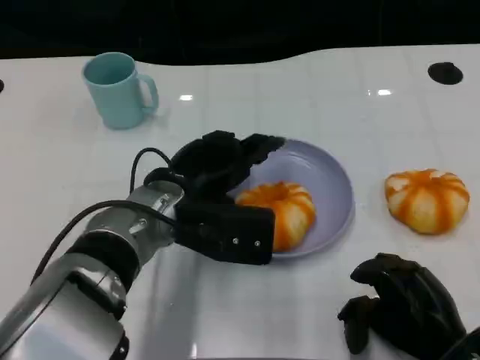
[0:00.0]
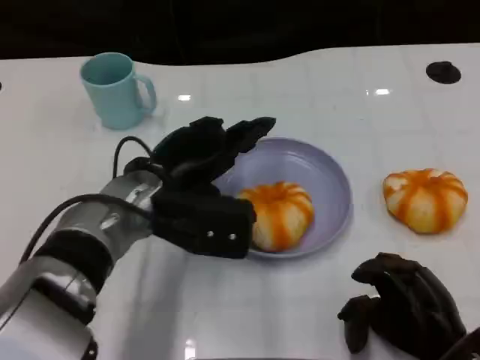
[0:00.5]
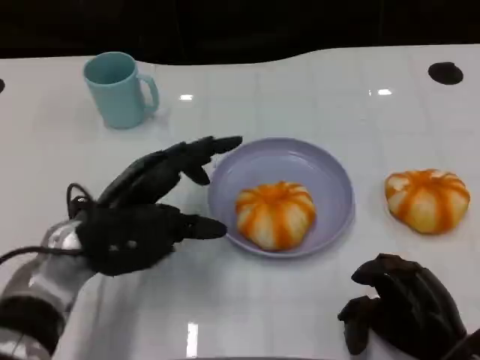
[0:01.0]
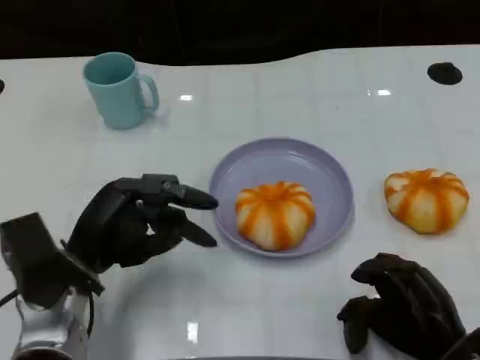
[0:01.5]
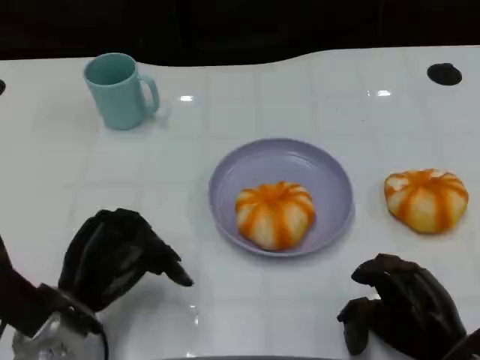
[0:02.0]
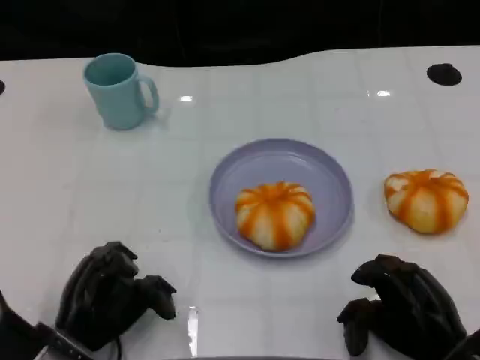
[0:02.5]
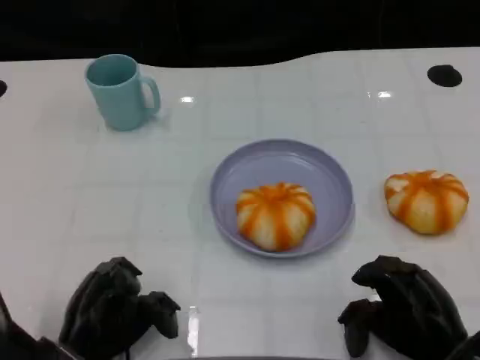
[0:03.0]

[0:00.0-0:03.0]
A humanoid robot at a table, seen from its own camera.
Task of the whole recording: Grasp the bread from the table and place it into the plate.
0:00.0 to 0:01.5: The left hand is displaced to the left and backward by roughly 10 cm.
0:01.5 to 0:03.0: The left hand goes some 10 cm backward and downward.

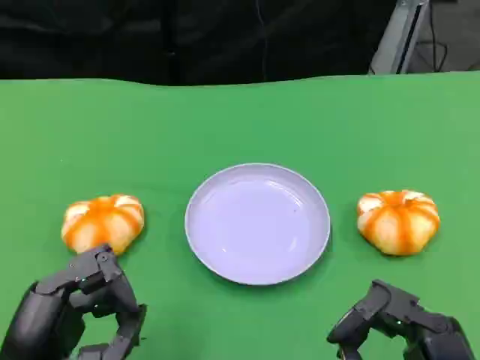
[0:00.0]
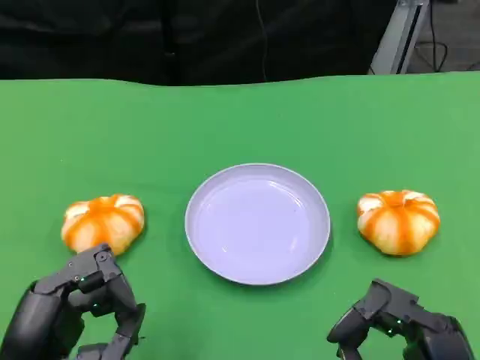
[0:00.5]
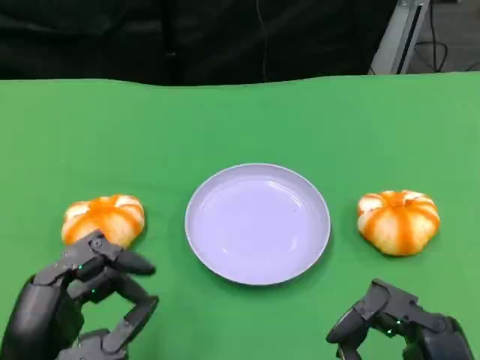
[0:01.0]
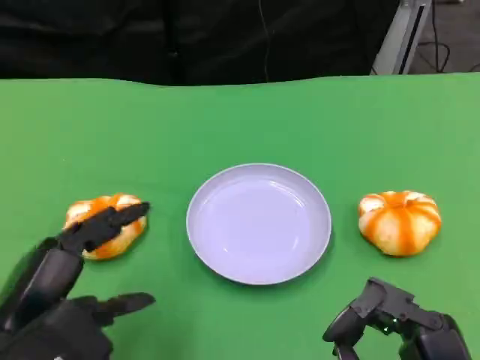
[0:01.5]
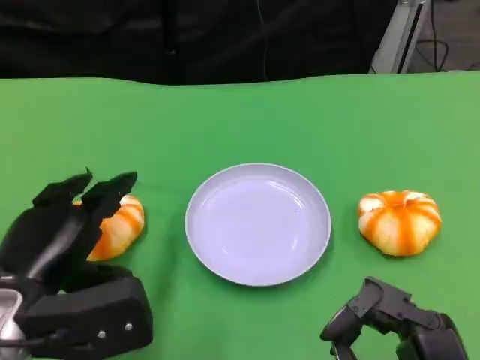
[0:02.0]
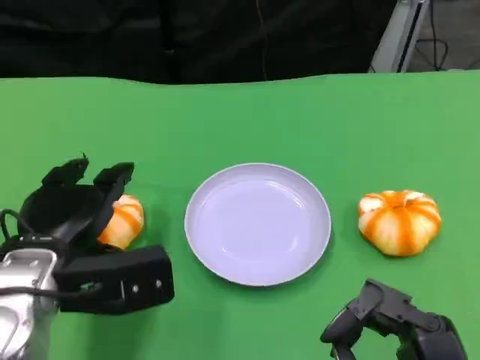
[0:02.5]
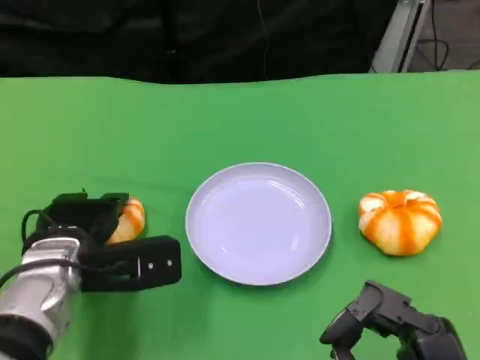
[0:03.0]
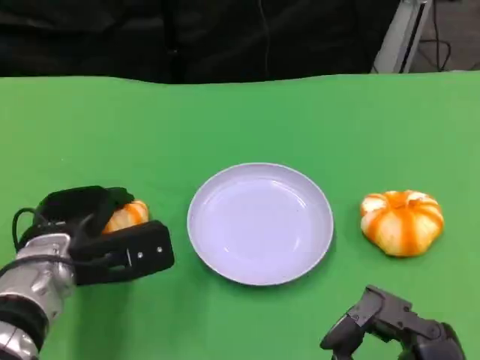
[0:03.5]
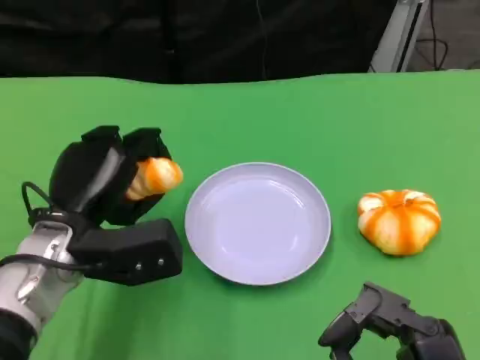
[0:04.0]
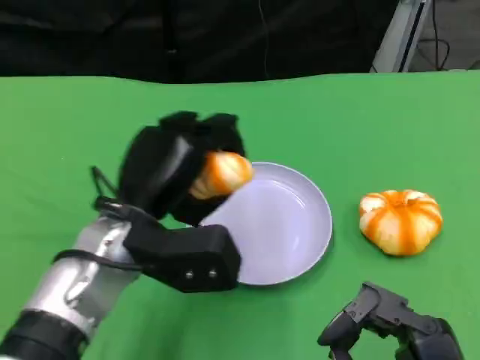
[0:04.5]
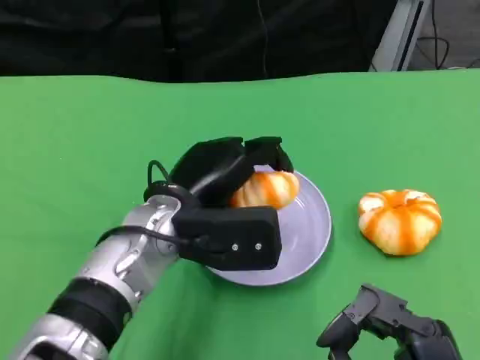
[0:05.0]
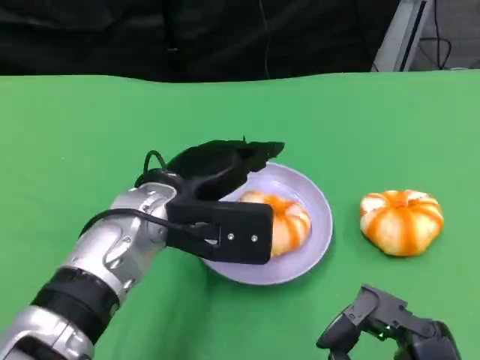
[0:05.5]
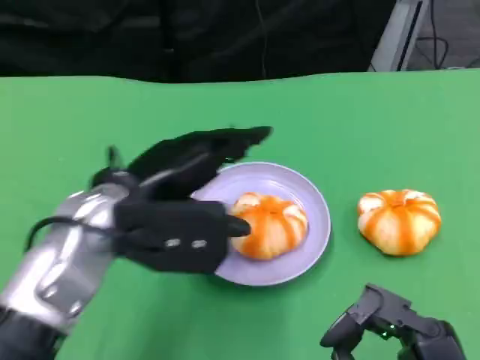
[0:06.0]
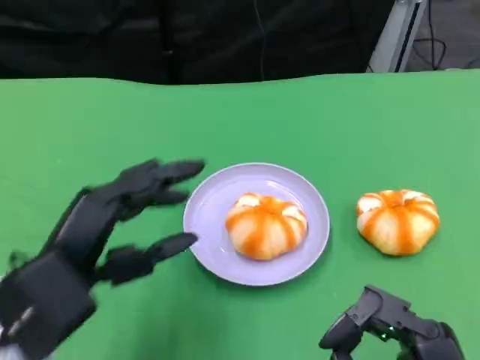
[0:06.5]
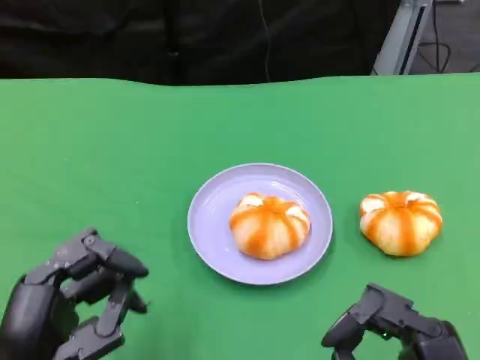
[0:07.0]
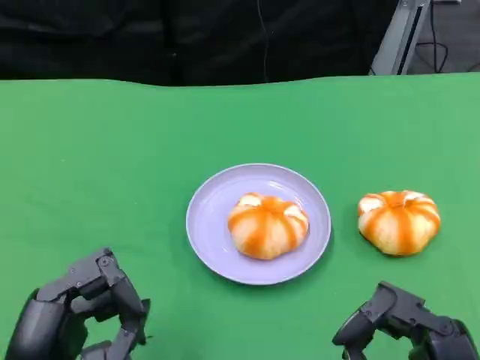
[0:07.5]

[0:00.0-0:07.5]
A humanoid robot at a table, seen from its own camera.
Task of the whole recording: Grasp the bread from the table and place it into the plate.
0:00.0 to 0:02.0: The left hand travels forward by roughly 10 cm.
0:02.0 to 0:04.0: The left hand is displaced forward by approximately 10 cm.
0:04.0 to 0:05.5: The left hand is displaced to the right by about 10 cm.
0:05.5 to 0:07.5: The left hand is displaced backward and to the left by some 20 cm.

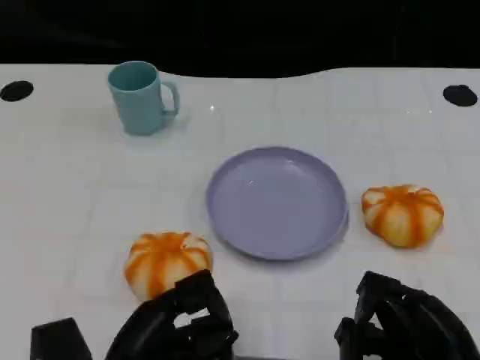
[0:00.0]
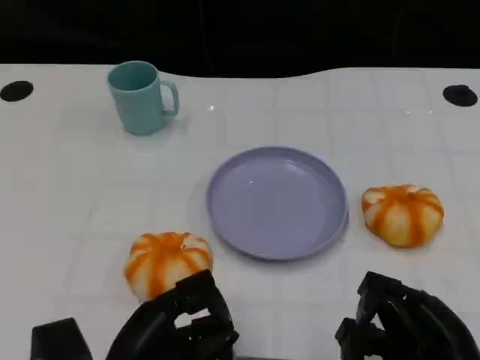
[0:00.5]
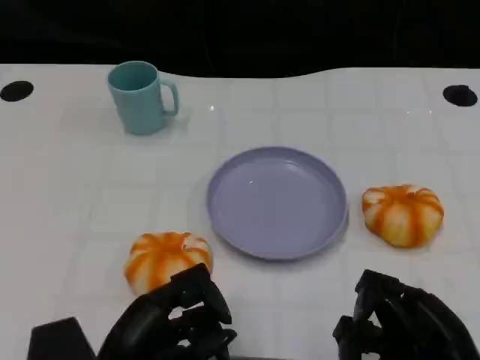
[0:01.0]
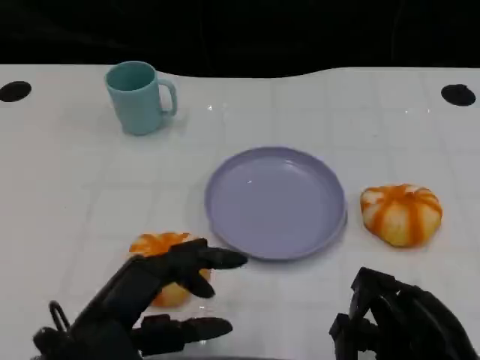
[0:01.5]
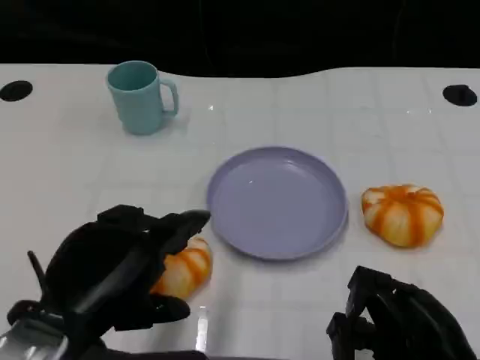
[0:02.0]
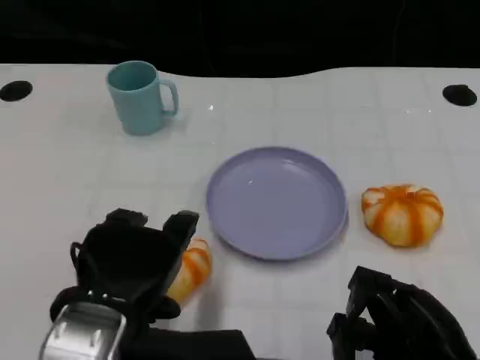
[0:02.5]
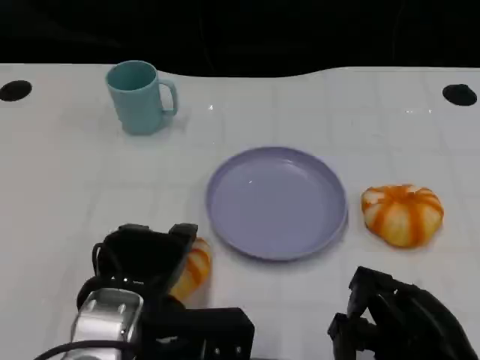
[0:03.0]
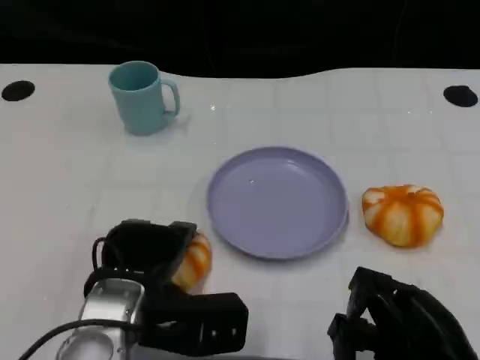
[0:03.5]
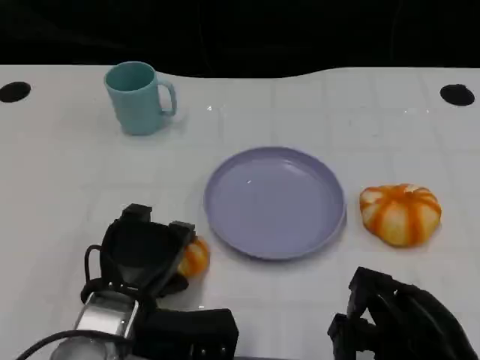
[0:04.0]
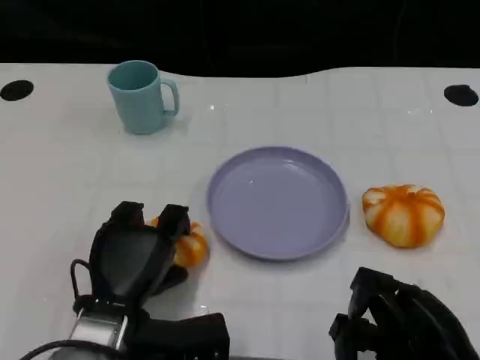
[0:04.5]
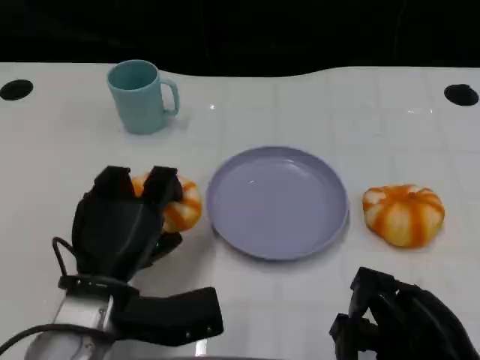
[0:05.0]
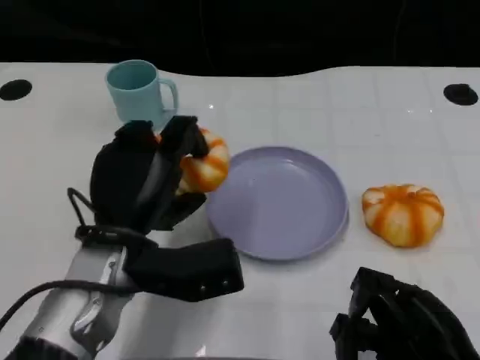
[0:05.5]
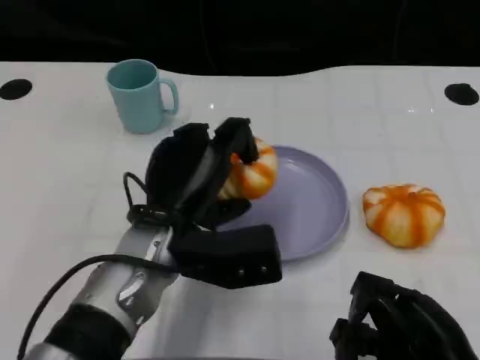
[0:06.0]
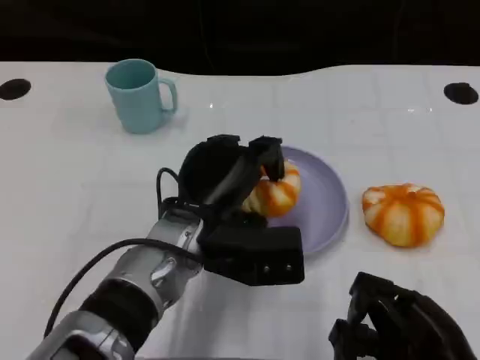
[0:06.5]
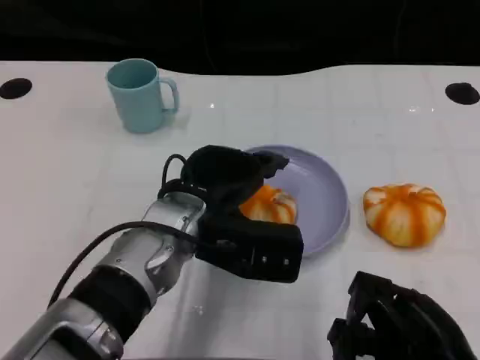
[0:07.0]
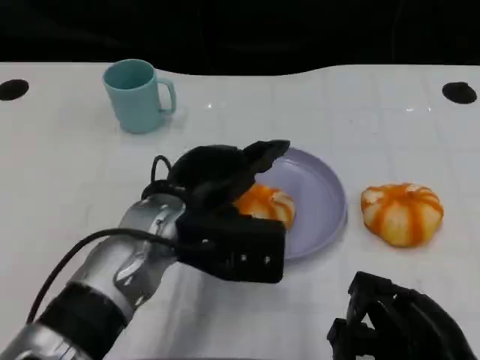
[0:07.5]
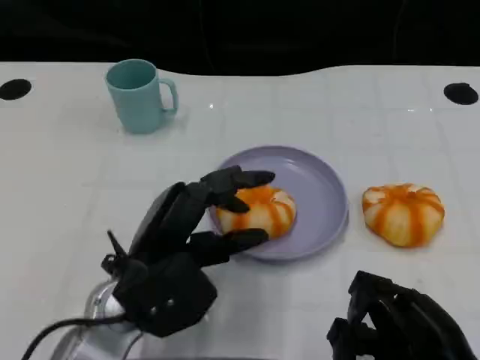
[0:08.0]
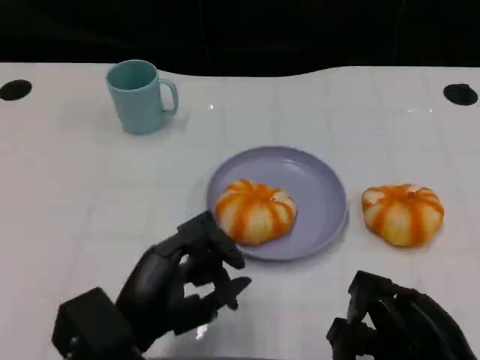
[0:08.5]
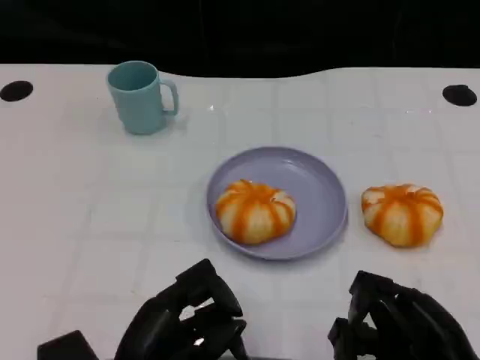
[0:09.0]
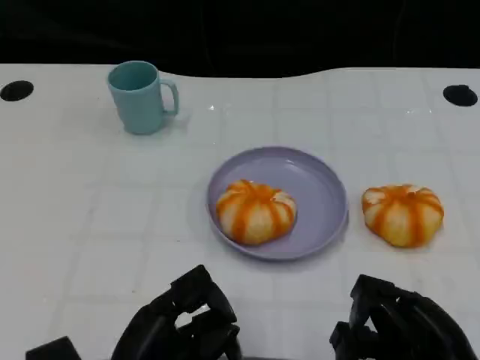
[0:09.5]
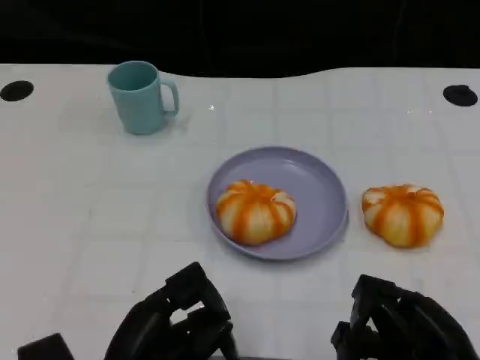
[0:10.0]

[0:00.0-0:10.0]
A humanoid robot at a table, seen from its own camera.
Task of the whole recording: Grasp the bread from the table and place it into the plate.
0:00.0 to 0:02.0: The left hand is displaced upward by roughly 10 cm.
0:02.0 to 0:04.0: The left hand shifts approximately 15 cm downward and forward.
0:04.0 to 0:06.0: The left hand moves upward and to the right, some 5 cm.
0:06.0 to 0:08.0: The left hand changes place by approximately 5 cm.
0:08.0 to 0:10.0: The left hand is displaced backward by some 10 cm.

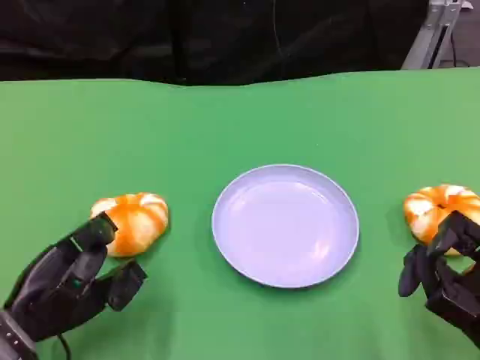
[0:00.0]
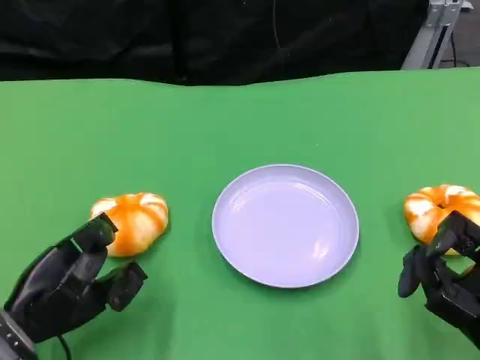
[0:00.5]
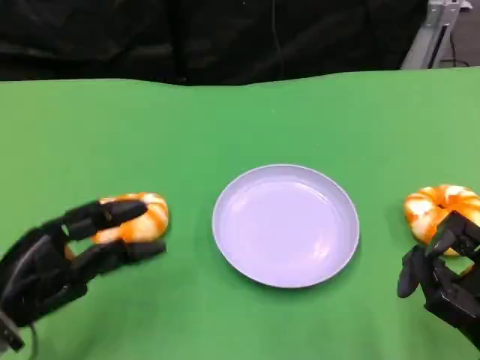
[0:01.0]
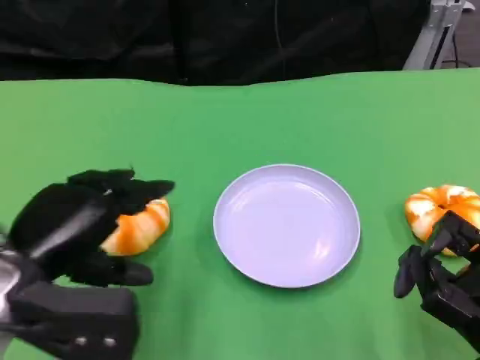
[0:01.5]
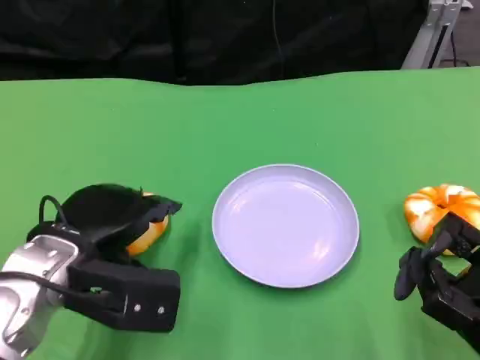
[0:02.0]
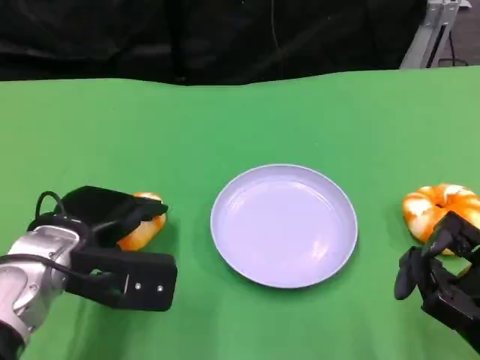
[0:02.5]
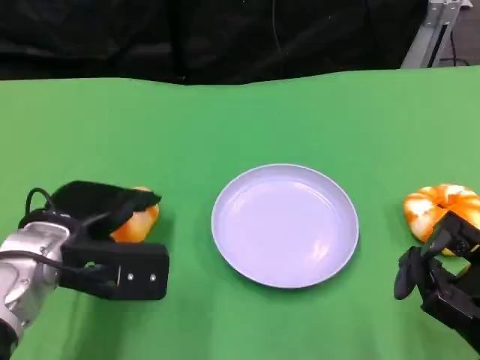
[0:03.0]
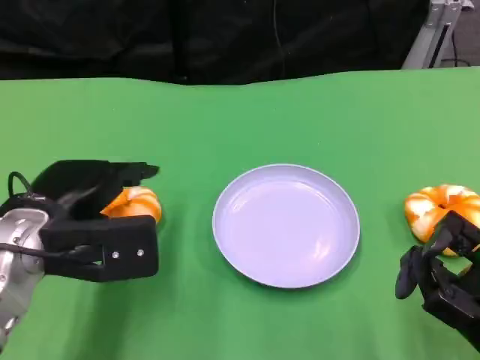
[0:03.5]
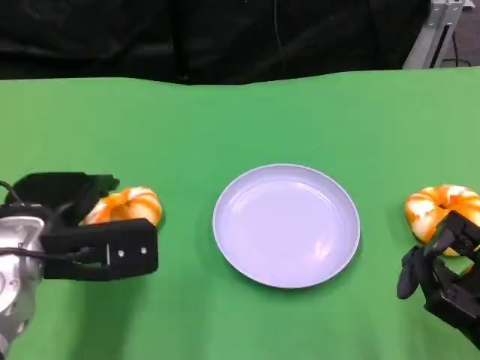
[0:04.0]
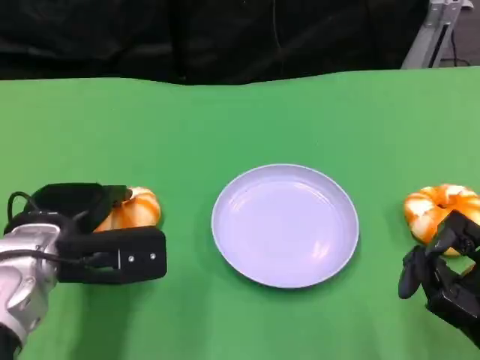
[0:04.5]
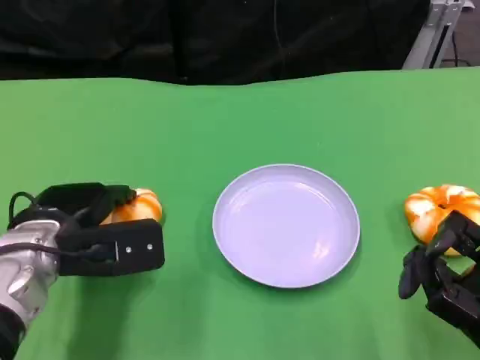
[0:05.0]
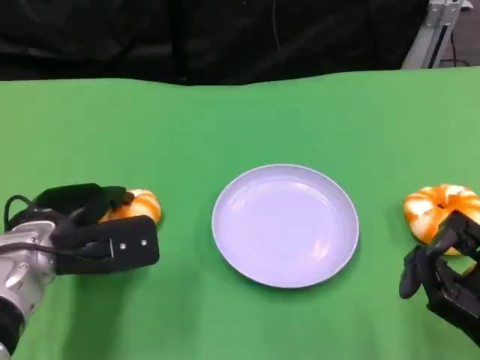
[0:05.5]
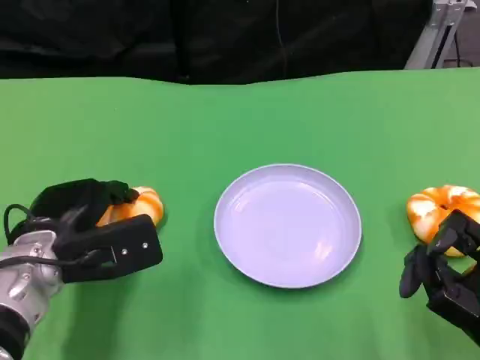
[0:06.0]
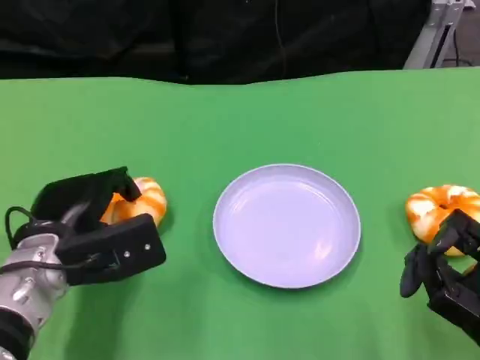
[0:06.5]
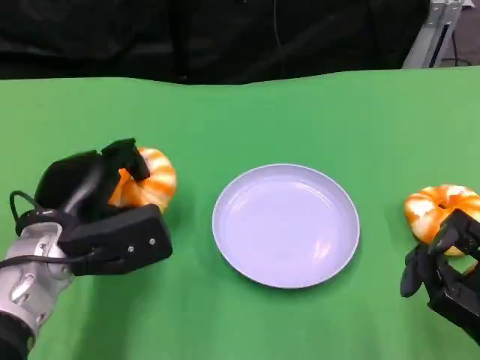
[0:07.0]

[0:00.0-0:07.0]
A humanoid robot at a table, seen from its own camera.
Task of the whole recording: Grasp the bread from the table and place it into the plate.
0:00.0 to 0:02.0: The left hand is displaced upward and to the right by roughly 10 cm.
0:02.0 to 0:05.0: The hands stay close to where they were, moving slightly.
